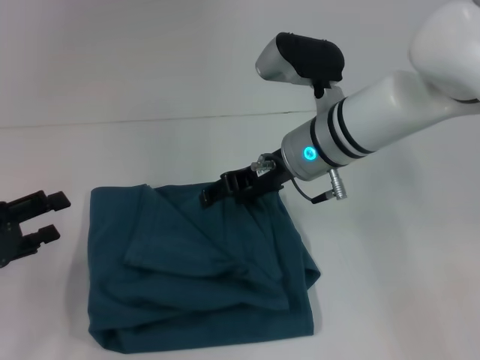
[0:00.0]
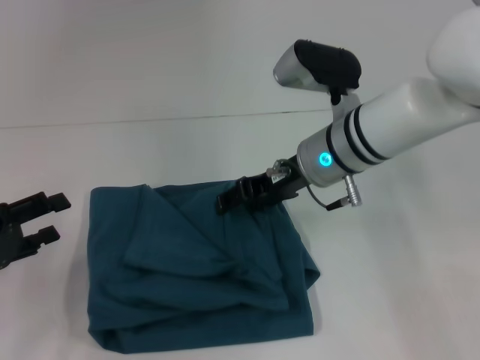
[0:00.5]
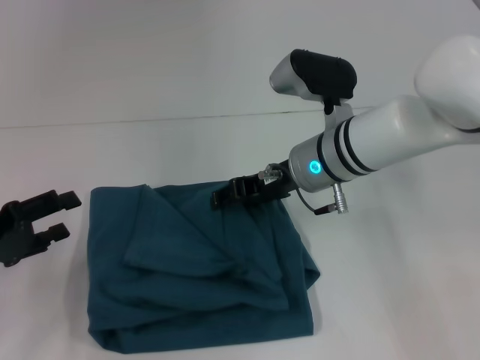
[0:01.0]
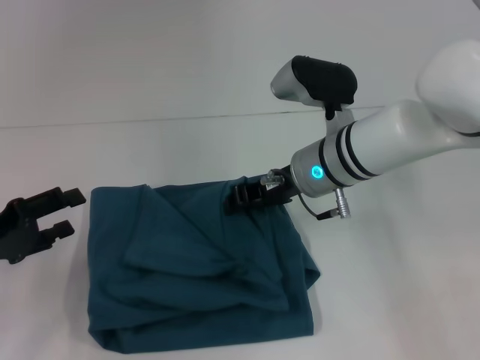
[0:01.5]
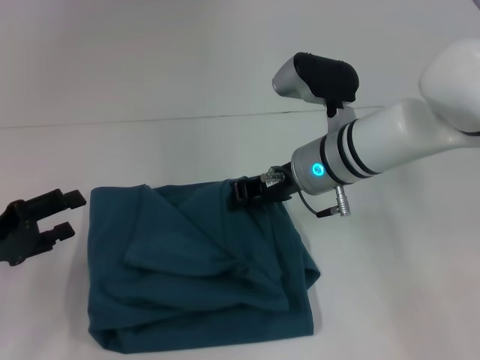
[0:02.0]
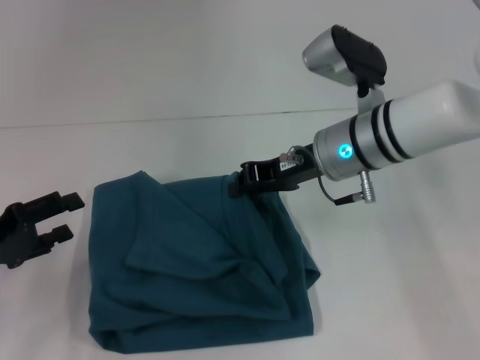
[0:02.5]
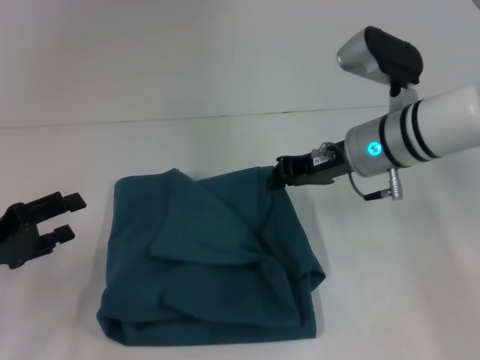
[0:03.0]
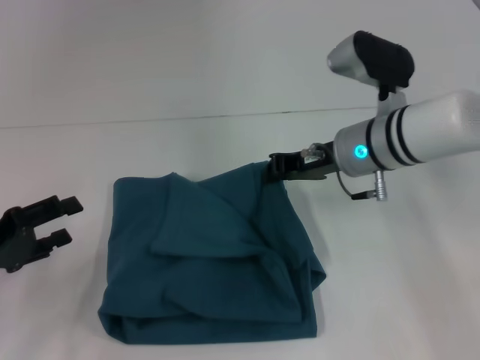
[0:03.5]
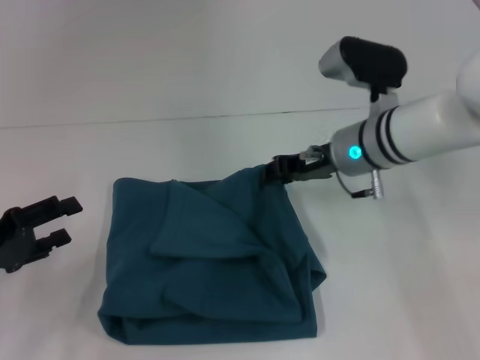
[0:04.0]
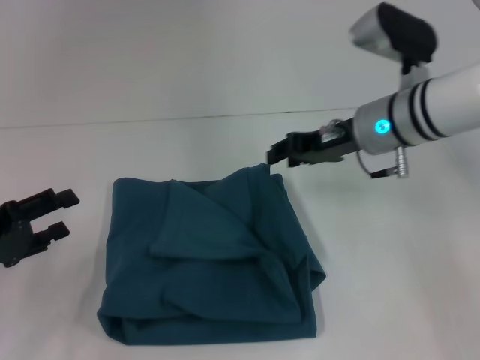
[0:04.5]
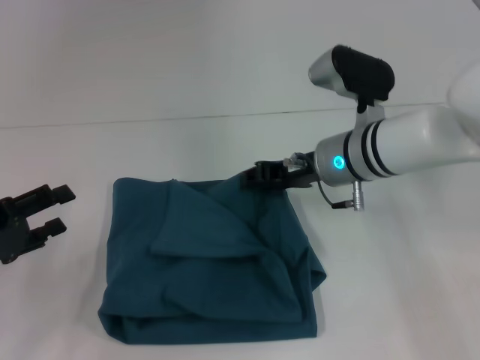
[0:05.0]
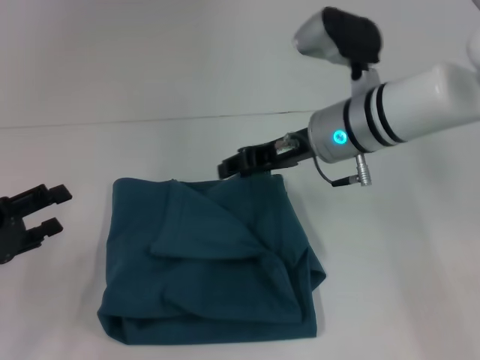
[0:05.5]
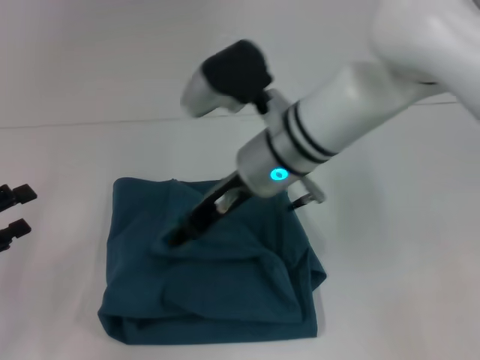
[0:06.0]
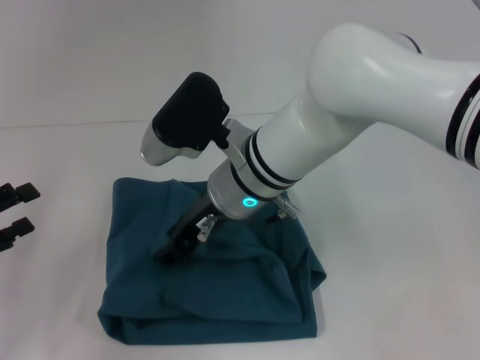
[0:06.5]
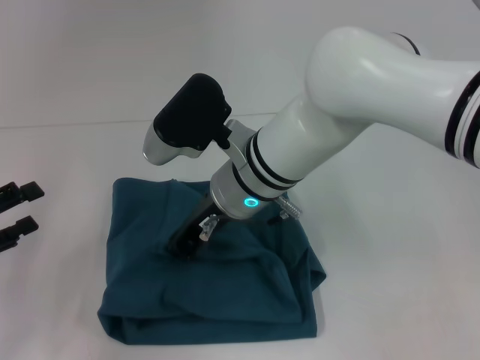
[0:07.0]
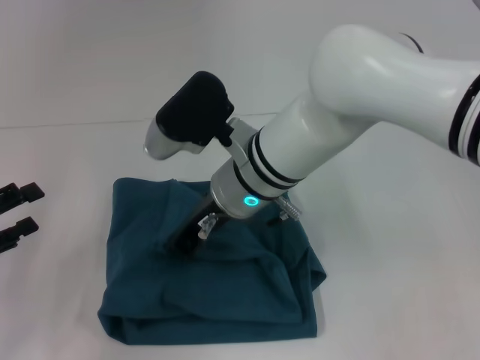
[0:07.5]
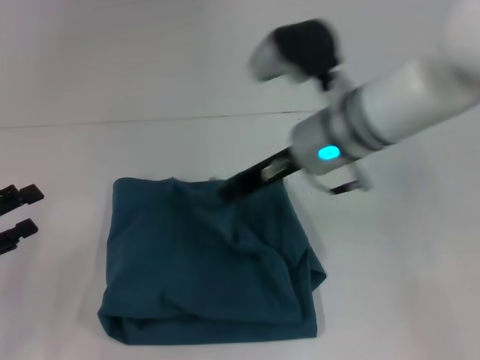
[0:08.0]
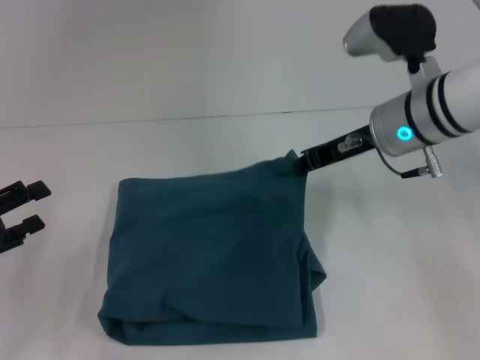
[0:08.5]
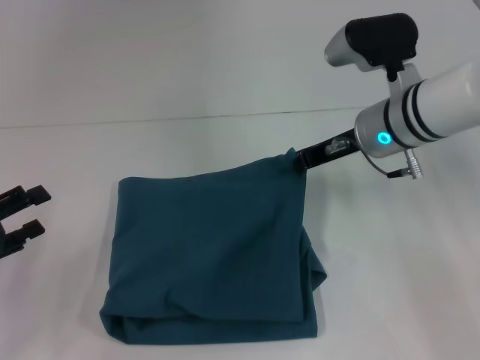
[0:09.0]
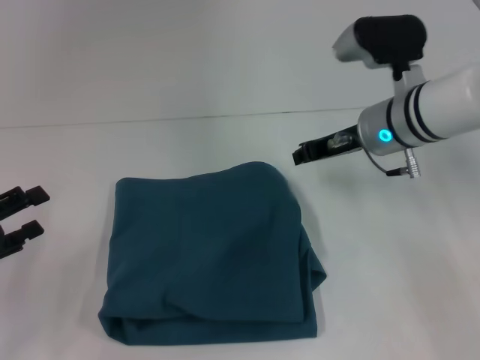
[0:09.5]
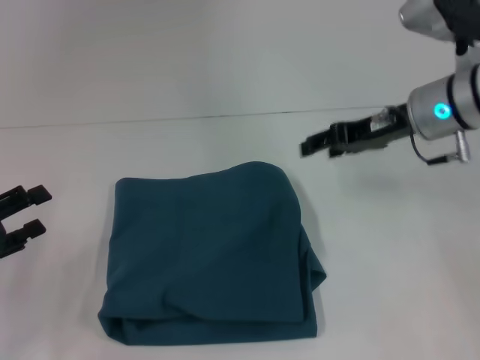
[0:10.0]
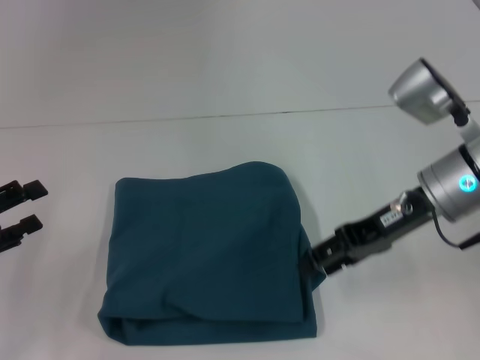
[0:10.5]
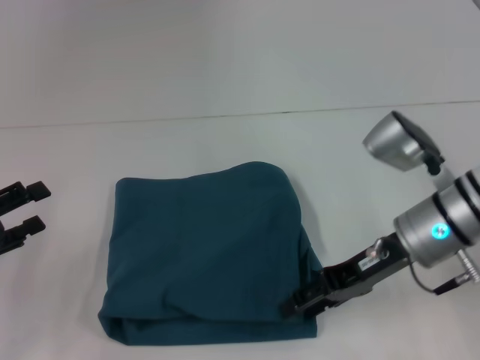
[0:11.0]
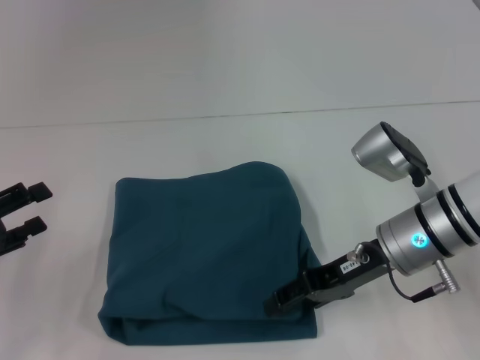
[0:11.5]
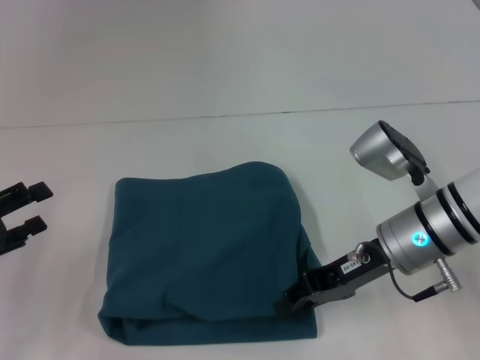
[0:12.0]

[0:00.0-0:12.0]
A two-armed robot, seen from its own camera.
0:00.0 to 0:02.0: The right gripper closes.
0:02.0 to 0:04.0: There are only small adjustments of the grippers.
0:04.0 to 0:06.0: The right gripper goes approximately 10 cm to the left.
0:06.0 to 0:08.0: The right gripper heads to the right, covering about 5 cm, and closes its fingers.
0:08.0 to 0:10.0: The right gripper travels to the right by about 10 cm, and opens its fingers.
0:10.0 to 0:12.0: The right gripper is displaced backward and downward by roughly 10 cm.

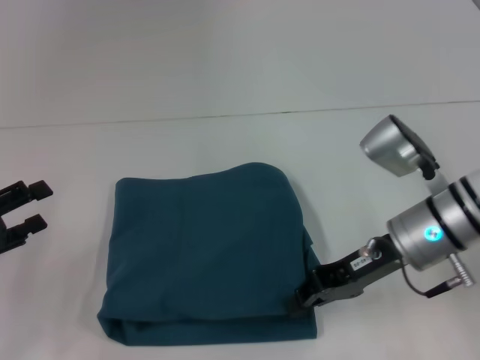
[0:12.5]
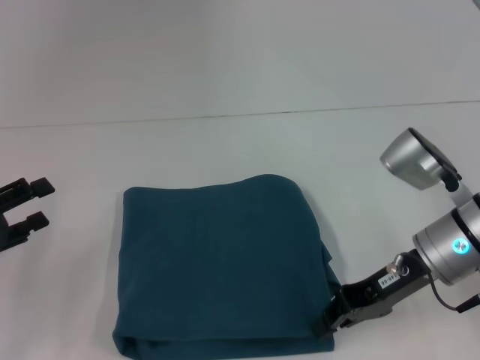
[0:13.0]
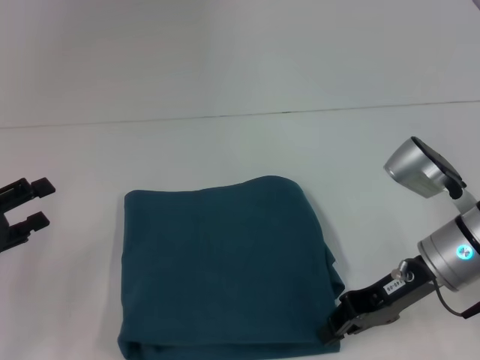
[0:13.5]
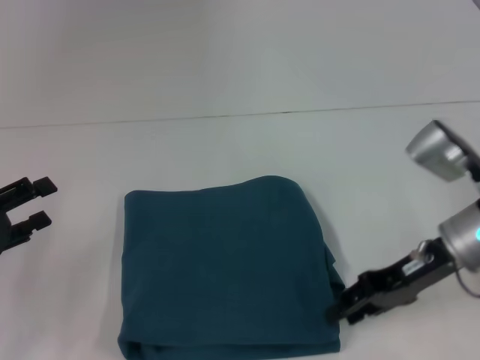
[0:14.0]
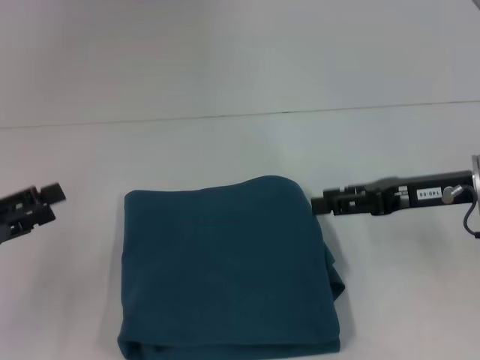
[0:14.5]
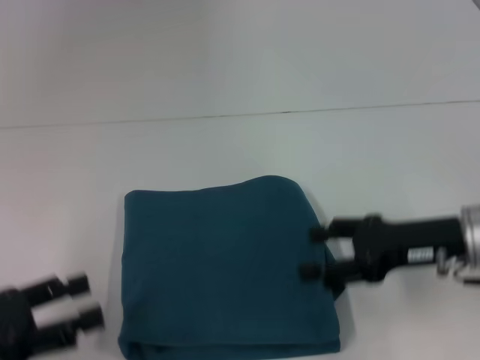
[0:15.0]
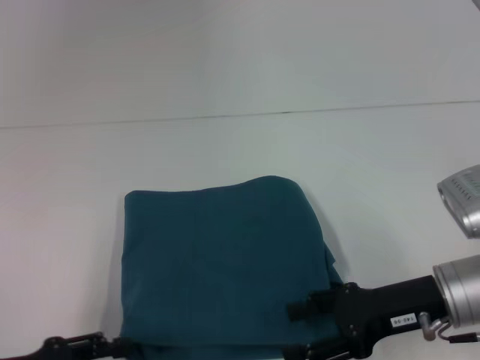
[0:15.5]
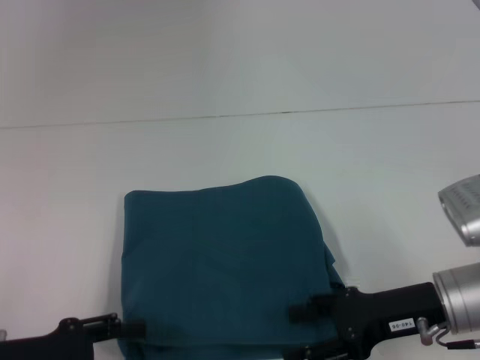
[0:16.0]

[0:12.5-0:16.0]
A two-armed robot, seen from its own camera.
0:12.5 to 0:14.5: The right gripper moves to the right, some 5 cm, and opens its fingers.
0:14.5 to 0:16.0: The left gripper is displaced to the right and backward by about 10 cm. Meanwhile the right gripper heads backward and downward, covering roughly 10 cm, and opens.

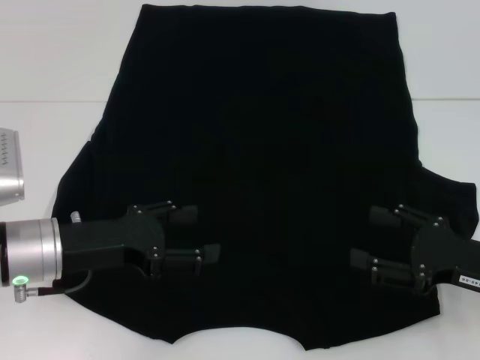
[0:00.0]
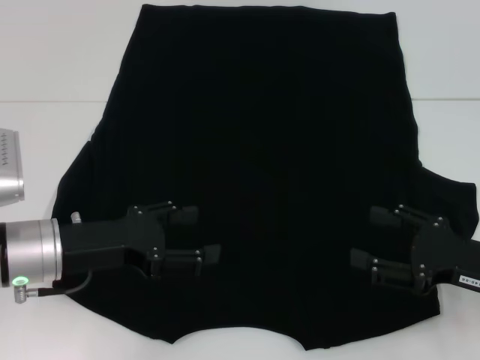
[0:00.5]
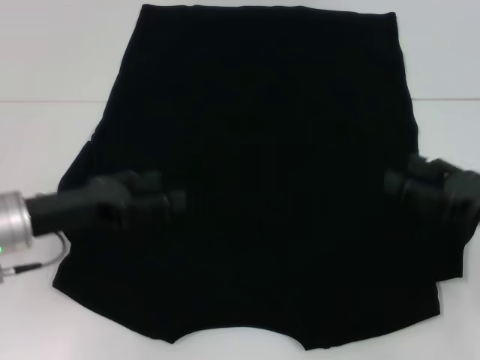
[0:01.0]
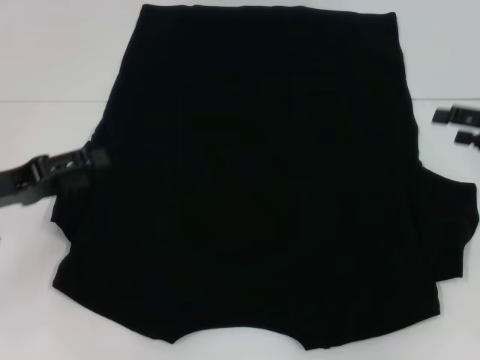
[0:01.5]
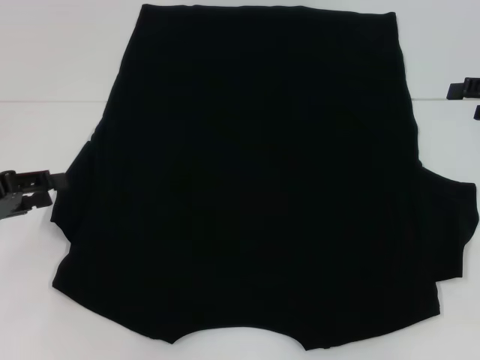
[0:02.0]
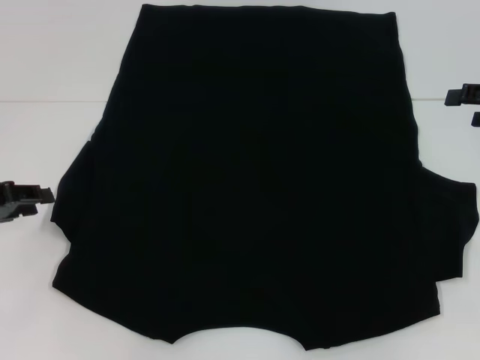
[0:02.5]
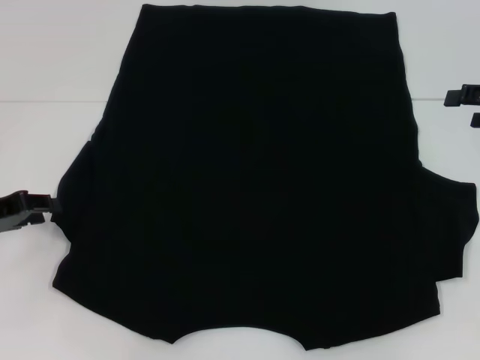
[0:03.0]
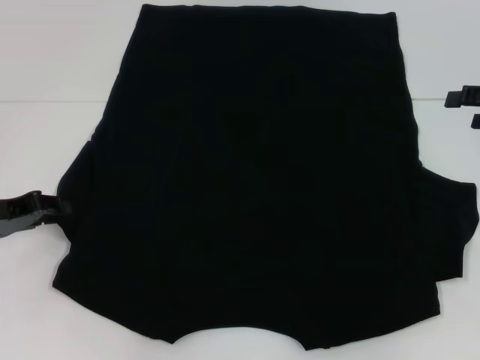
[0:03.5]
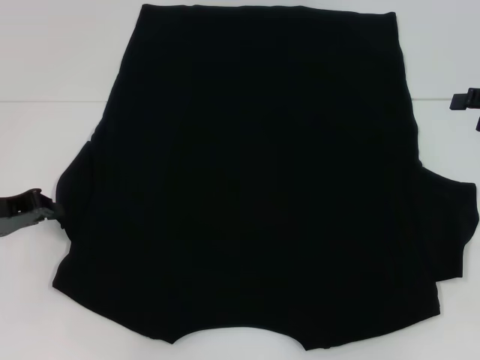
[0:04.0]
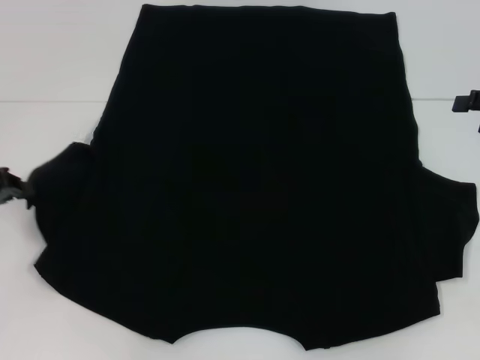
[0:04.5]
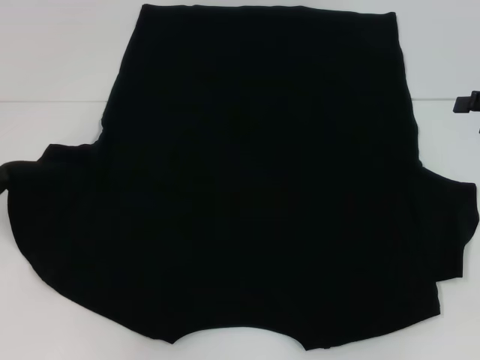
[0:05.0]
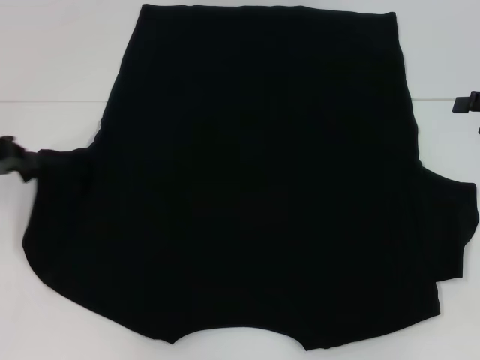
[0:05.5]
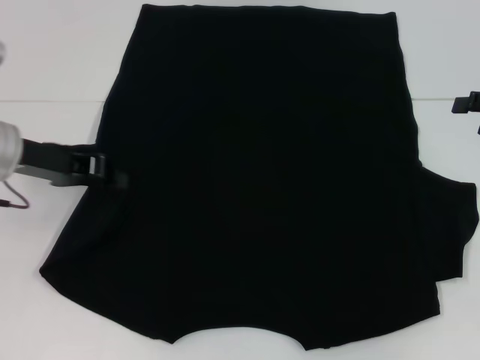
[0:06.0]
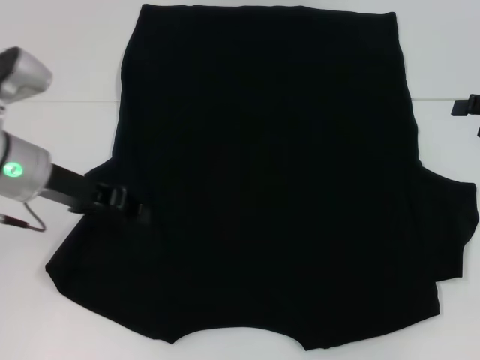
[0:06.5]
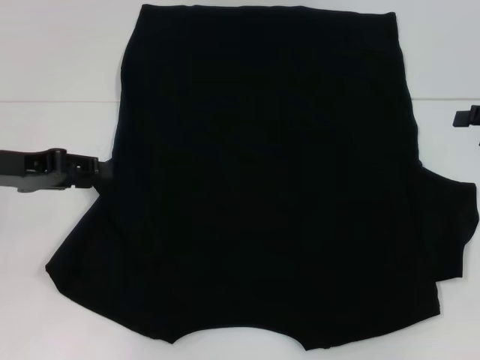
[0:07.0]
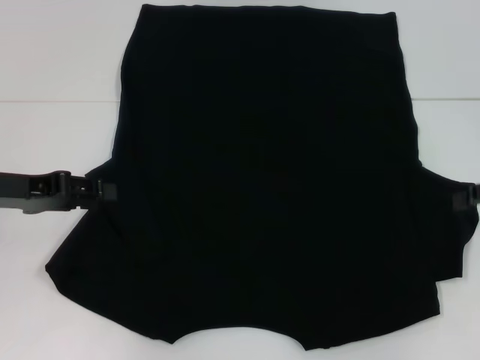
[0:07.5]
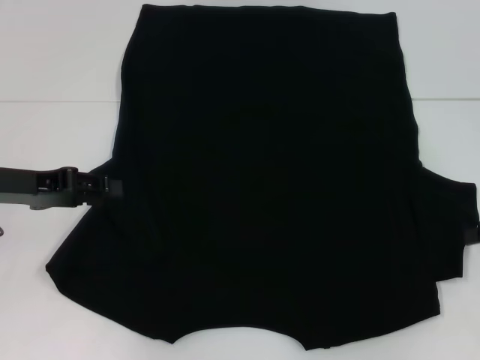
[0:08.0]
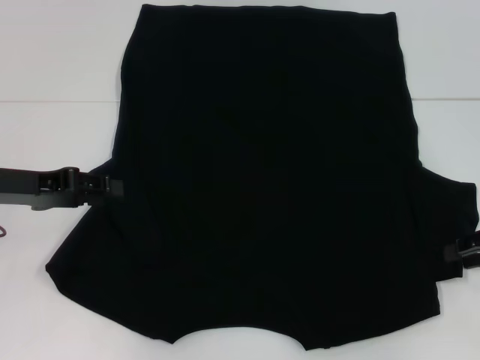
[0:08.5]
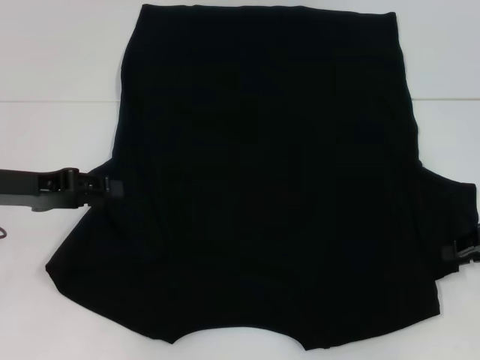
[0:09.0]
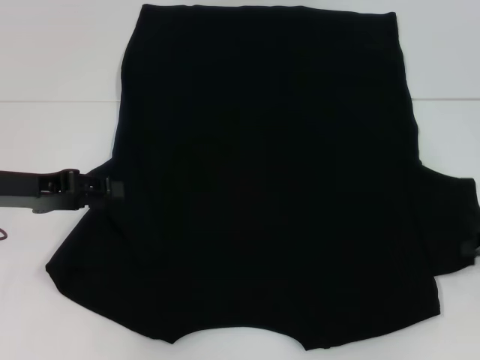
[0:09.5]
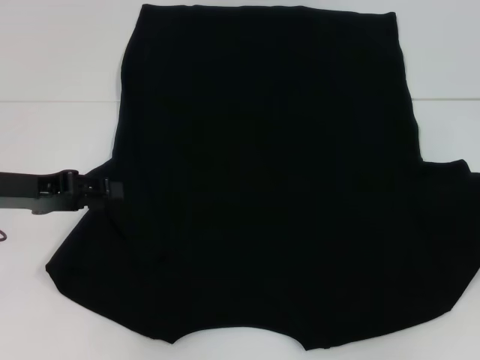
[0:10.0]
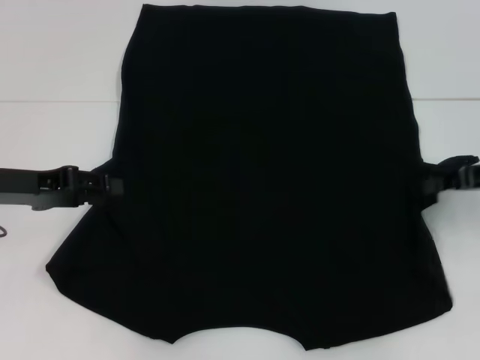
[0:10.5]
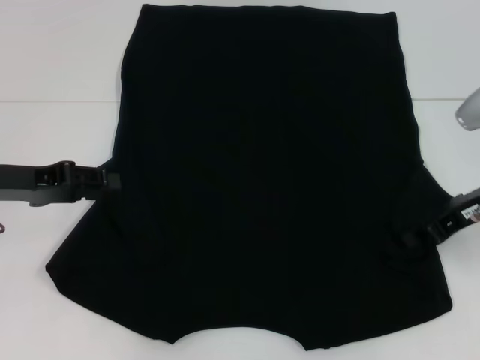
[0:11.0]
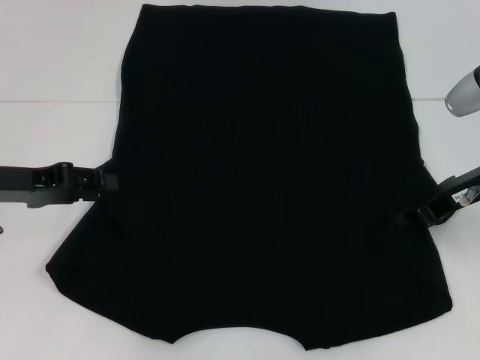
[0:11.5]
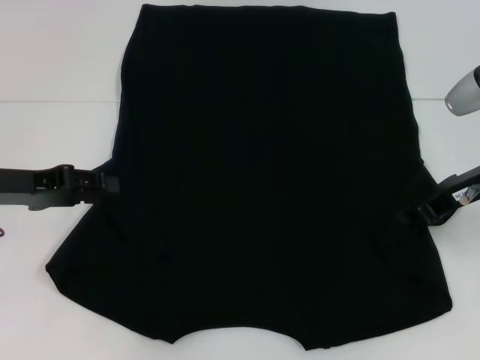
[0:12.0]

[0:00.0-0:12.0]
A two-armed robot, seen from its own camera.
Step, 0:00.0 to 0:06.5: Fold the bottom left sleeve with your left hand.
0:00.0 to 0:02.0: The right gripper shifts approximately 20 cm forward, upward and to the right. The left gripper travels to the left by roughly 10 cm.
0:02.0 to 0:04.0: The left gripper closes up.
0:04.0 to 0:06.0: The left gripper goes about 10 cm to the right and upward.
0:06.0 to 0:08.0: The left gripper changes place by approximately 5 cm, and opens its fingers.
0:08.0 to 0:10.0: The right gripper closes up.
0:10.0 to 0:12.0: The right gripper is displaced to the left by approximately 15 cm.
